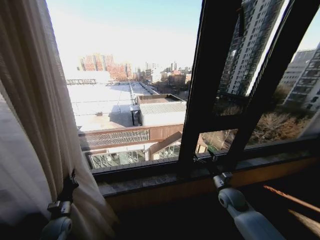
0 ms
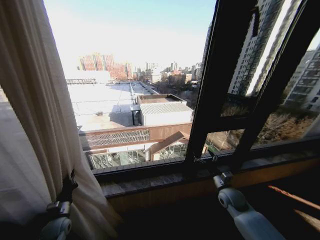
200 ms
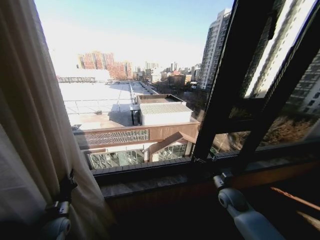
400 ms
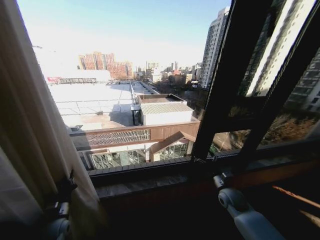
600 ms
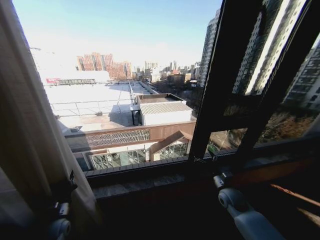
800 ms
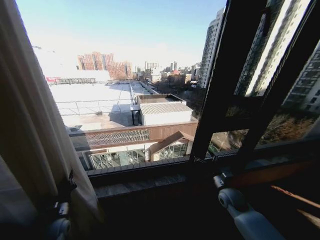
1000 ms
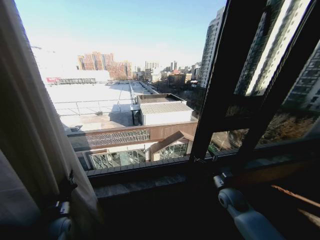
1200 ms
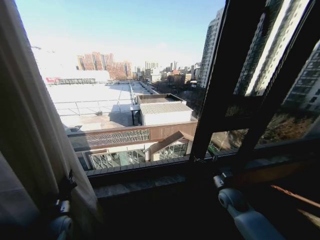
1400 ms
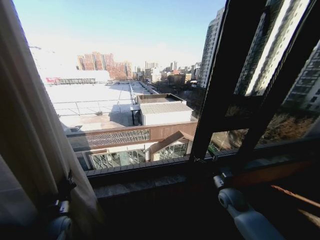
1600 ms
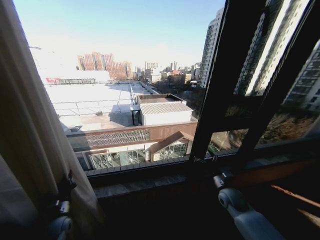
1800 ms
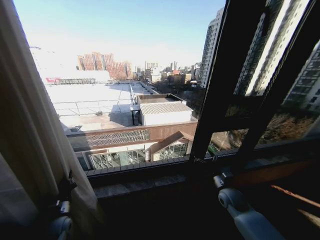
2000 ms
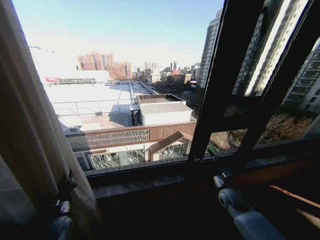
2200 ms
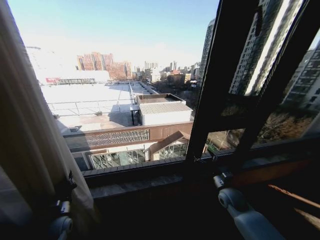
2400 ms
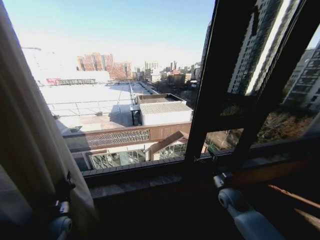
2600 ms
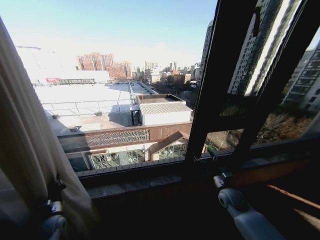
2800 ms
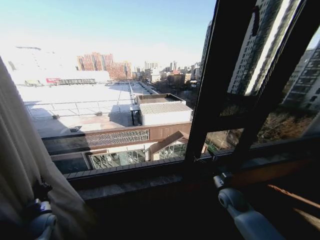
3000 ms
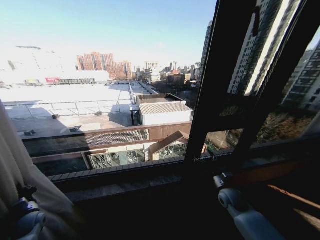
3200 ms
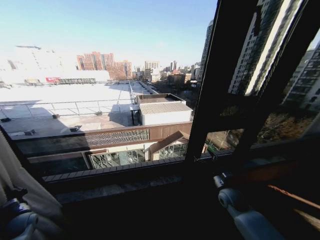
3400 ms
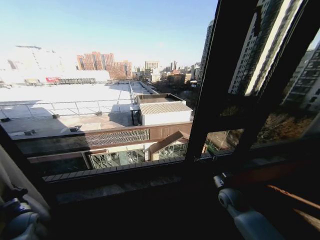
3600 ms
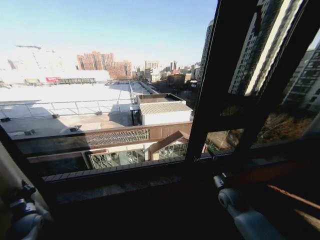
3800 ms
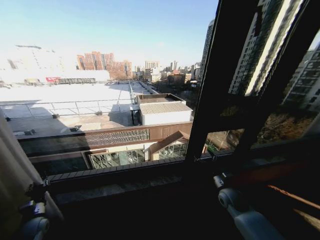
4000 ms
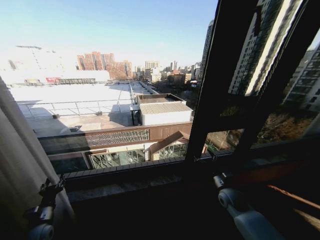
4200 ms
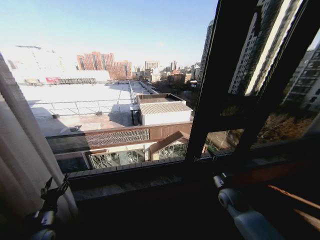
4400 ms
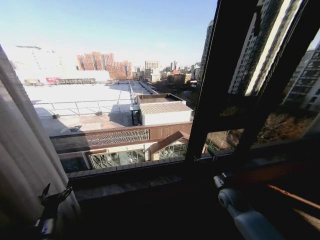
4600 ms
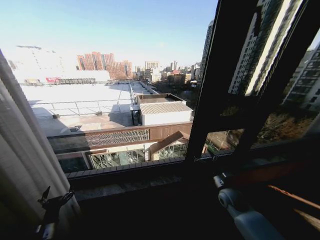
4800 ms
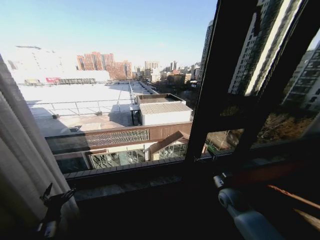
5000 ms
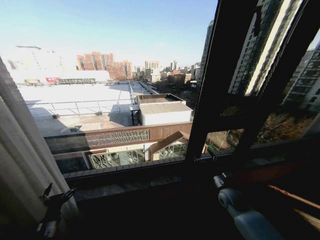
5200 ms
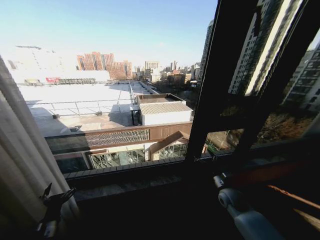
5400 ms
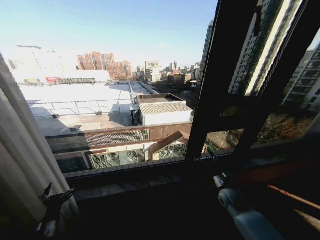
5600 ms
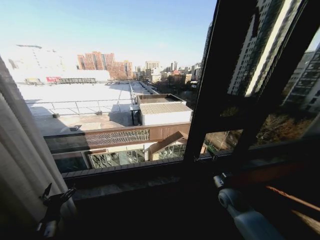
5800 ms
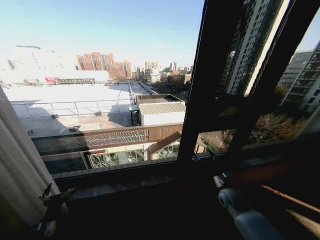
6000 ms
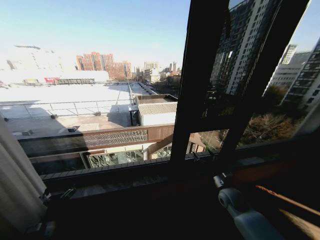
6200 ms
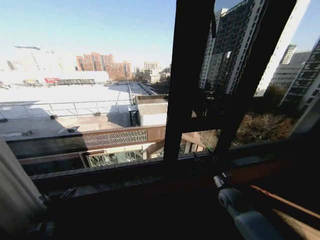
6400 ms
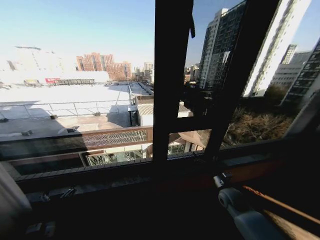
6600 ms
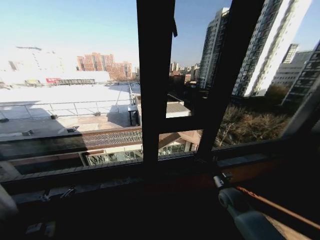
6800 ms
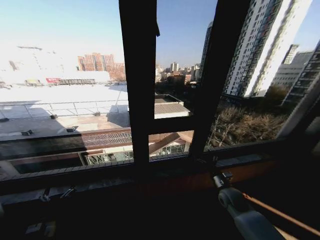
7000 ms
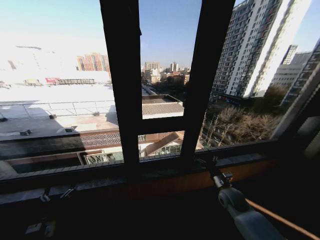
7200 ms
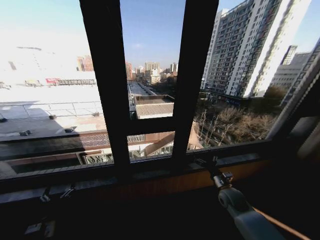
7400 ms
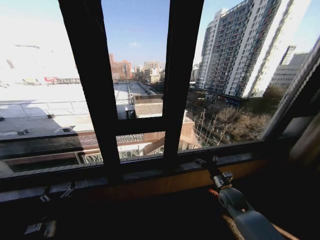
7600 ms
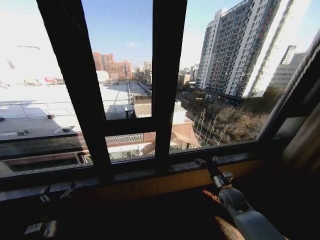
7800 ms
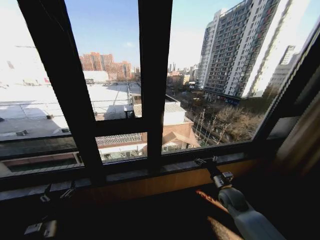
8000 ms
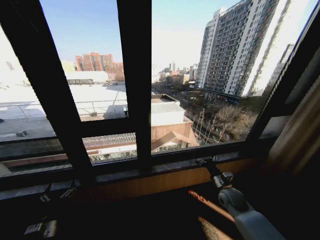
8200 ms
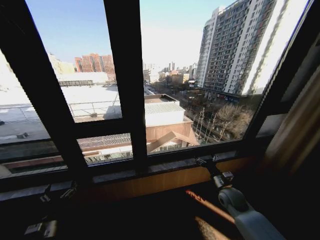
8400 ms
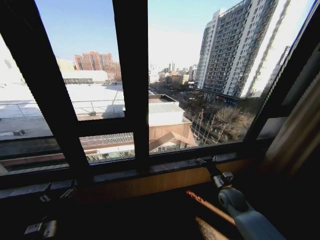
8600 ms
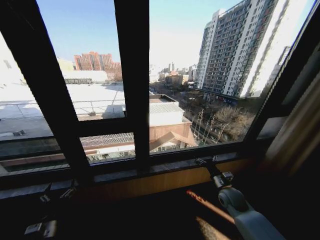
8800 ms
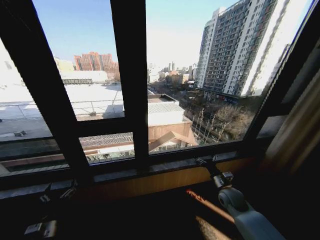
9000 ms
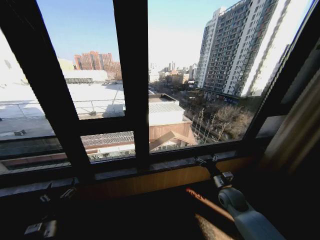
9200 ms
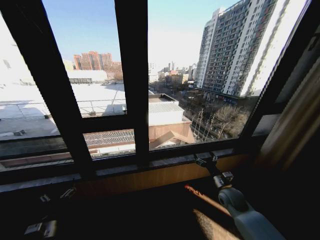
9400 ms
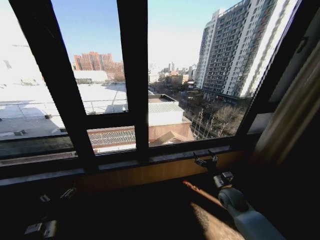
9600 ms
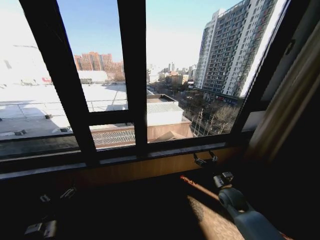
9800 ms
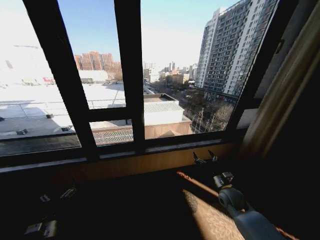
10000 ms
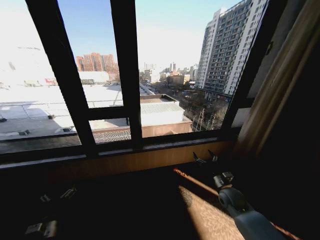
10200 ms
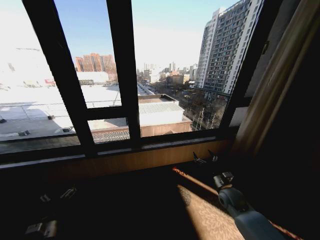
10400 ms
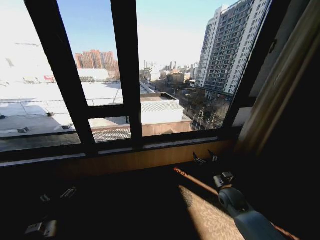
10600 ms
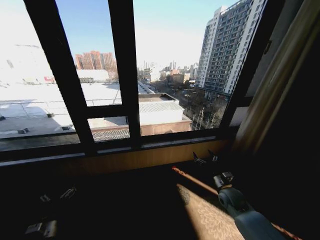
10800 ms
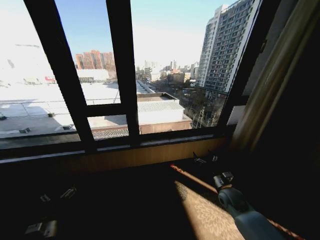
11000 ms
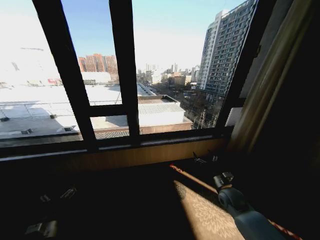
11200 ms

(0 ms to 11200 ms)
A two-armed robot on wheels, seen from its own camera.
Task of the whole recording: Open the curtains by pulling them apart, changing their state from closed to fully open.
1600 ms - 3200 ms: The left gripper moves to the left, some 10 cm.
3200 ms - 4800 ms: The left gripper is displaced to the right and backward by about 15 cm, and opens.
